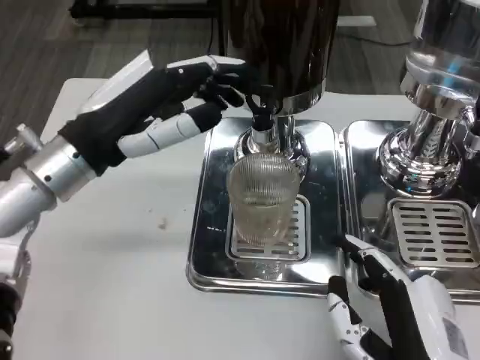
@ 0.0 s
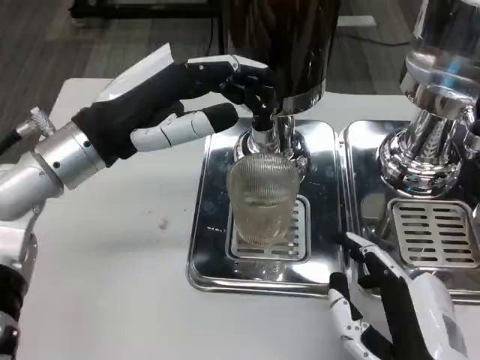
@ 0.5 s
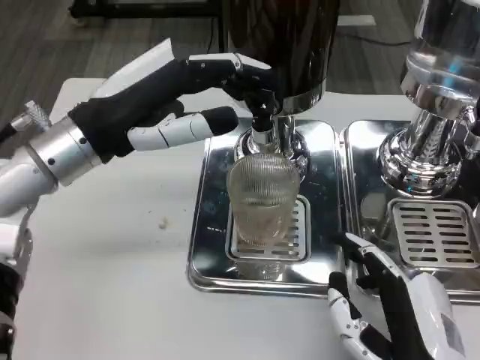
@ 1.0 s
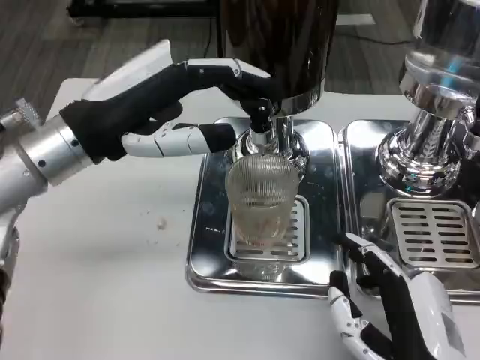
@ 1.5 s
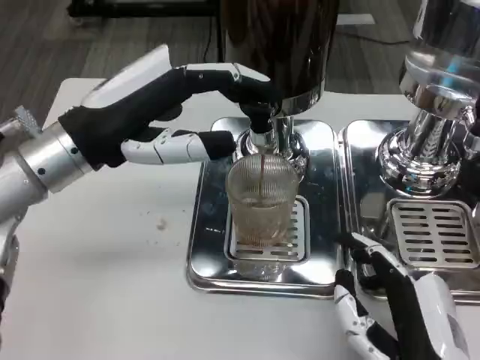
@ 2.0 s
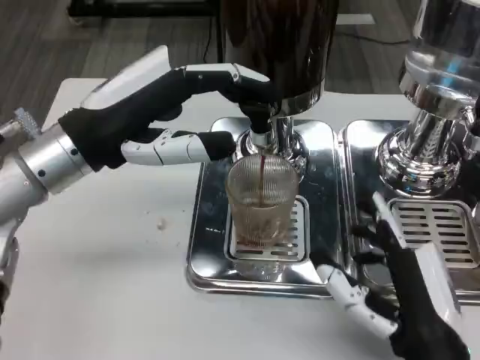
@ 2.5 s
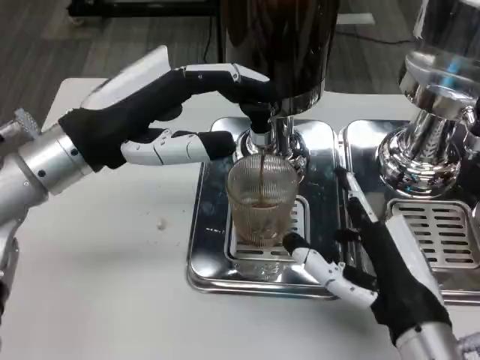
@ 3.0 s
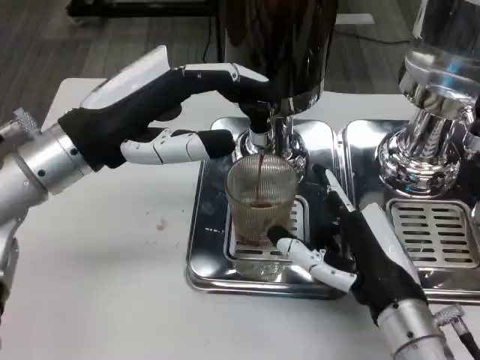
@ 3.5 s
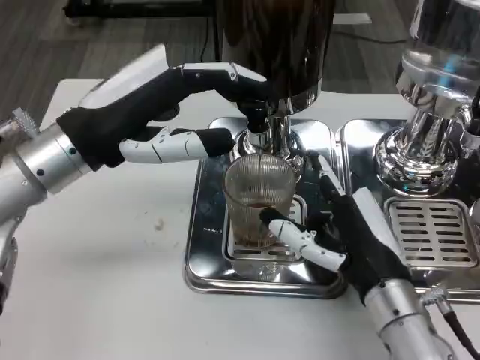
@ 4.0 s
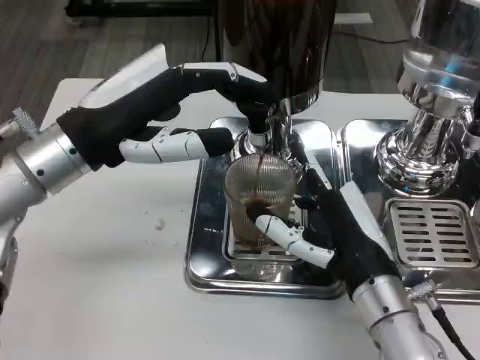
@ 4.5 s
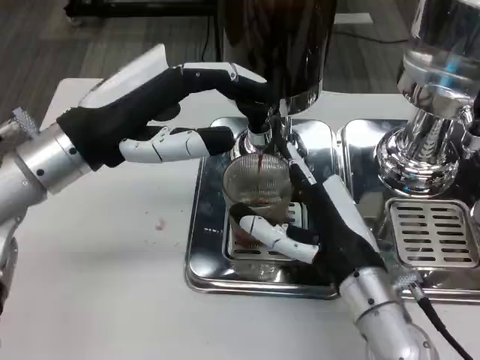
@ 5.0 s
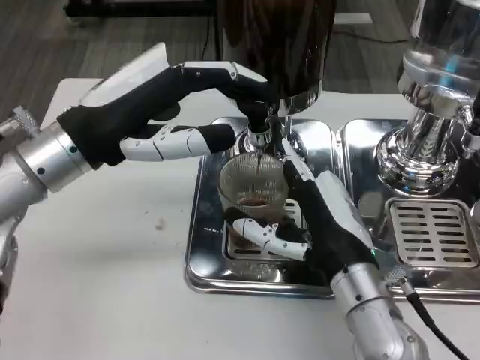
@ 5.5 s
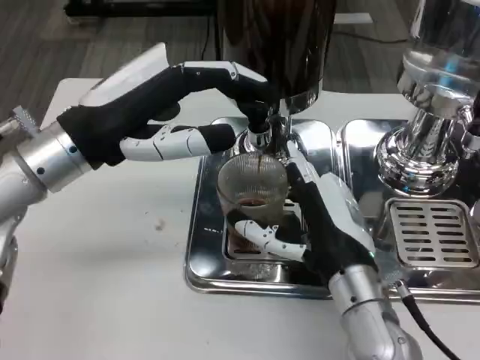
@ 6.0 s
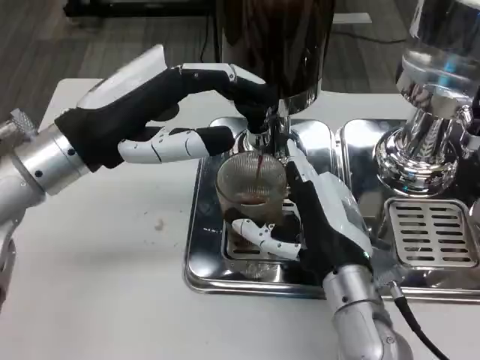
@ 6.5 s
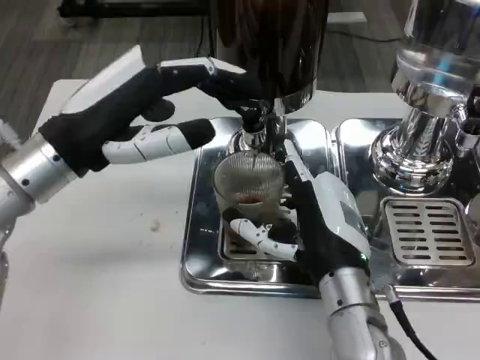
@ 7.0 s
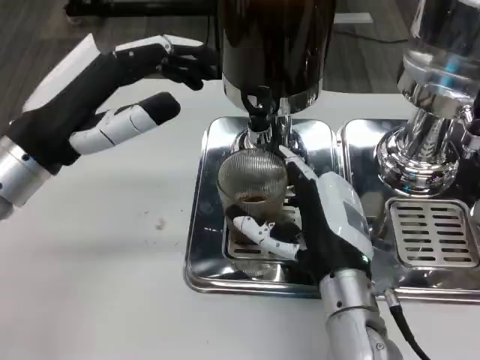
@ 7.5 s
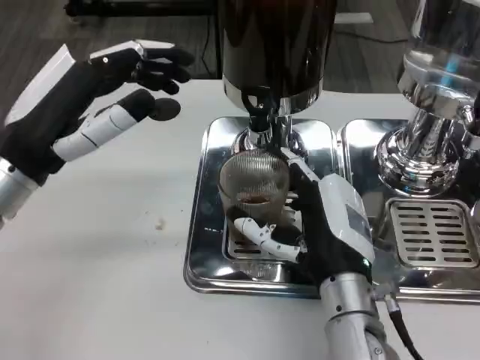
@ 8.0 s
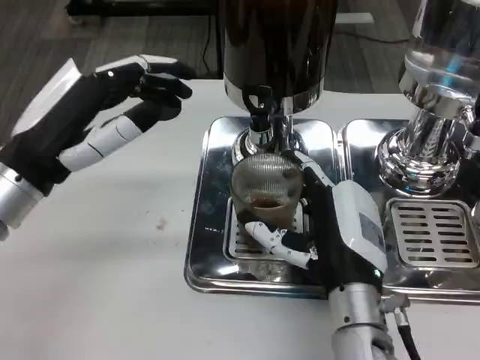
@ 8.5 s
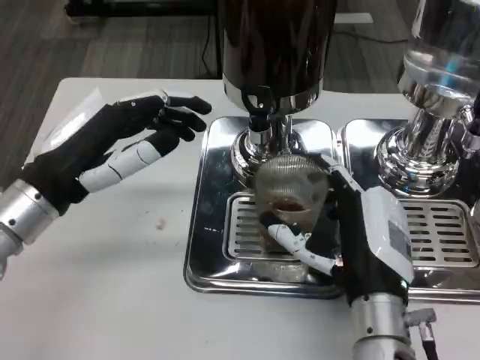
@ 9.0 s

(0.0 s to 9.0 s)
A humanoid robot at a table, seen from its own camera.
Task of the whole recording: Grasp the cup under the faucet to collect the drink, then remove the cup.
0.0 s - 2.0 s: The hands move only a little.
2.0 s - 4.5 s: The right hand moves forward, about 10 cm.

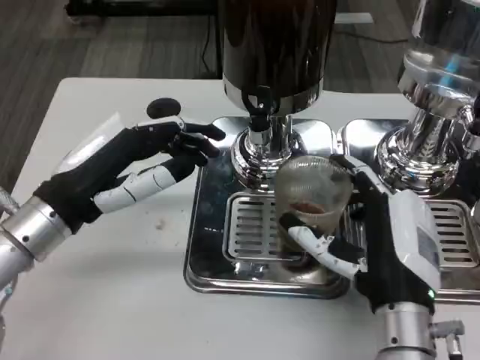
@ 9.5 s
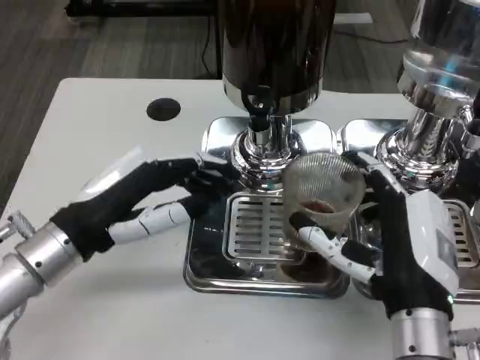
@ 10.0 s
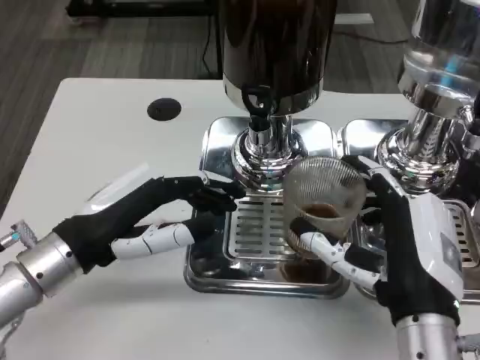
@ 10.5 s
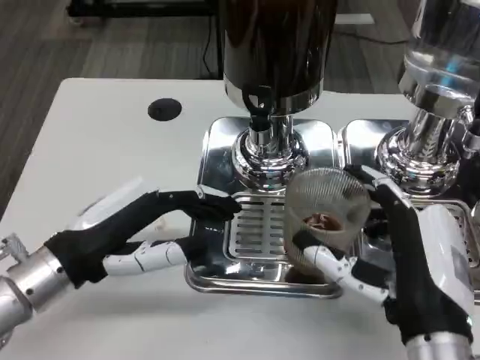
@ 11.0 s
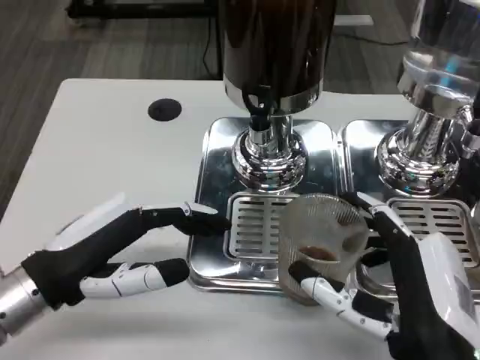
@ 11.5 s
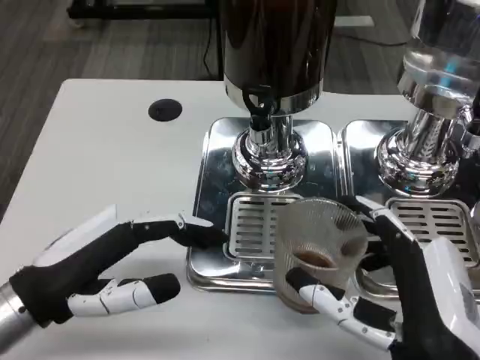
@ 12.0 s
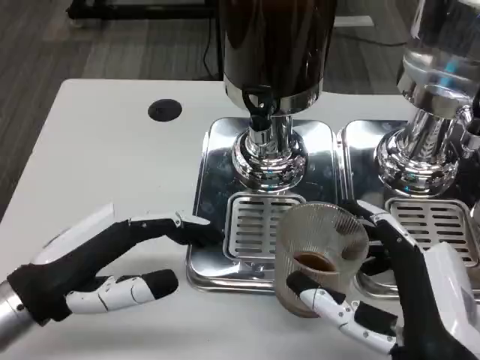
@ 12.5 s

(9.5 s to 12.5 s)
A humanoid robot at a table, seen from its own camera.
Task of the whole recording: Grasp the cup under the faucet to collect the drink, then remove the cup.
9.5 s - 11.0 s: The right hand changes place by roughly 5 cm.

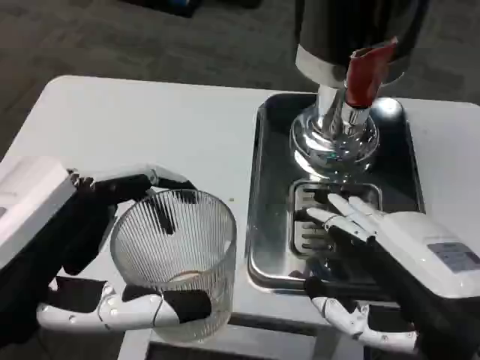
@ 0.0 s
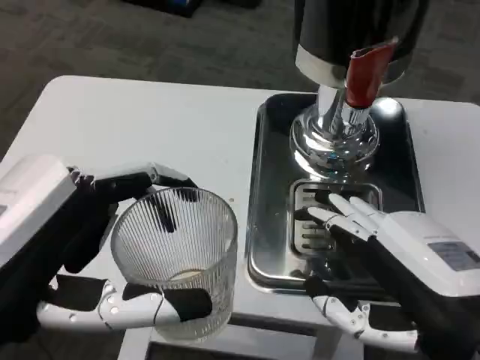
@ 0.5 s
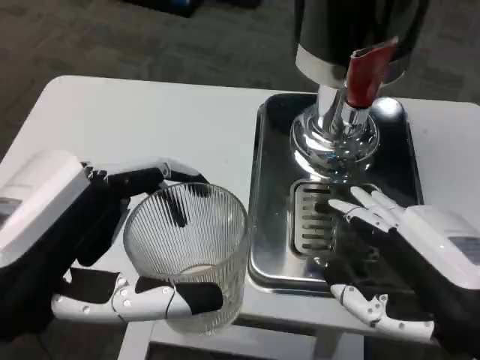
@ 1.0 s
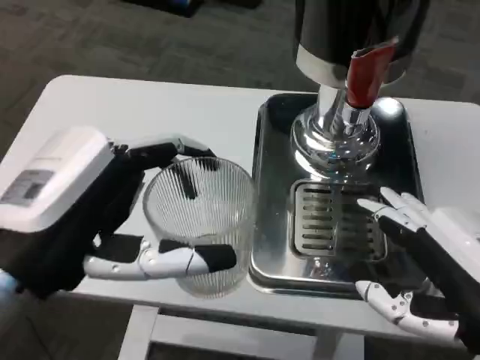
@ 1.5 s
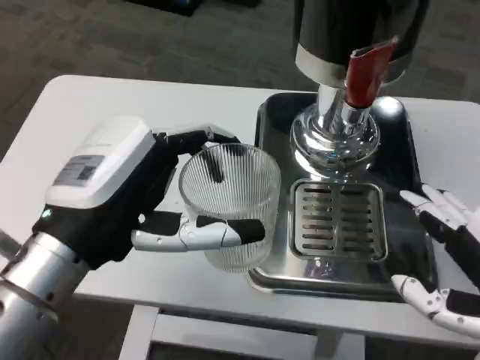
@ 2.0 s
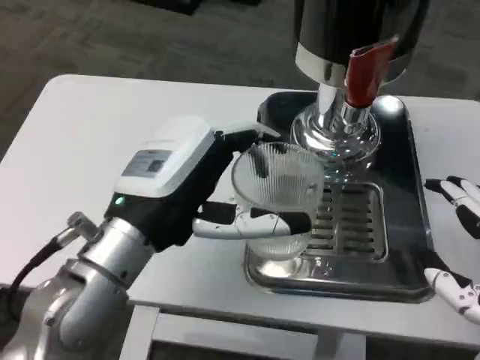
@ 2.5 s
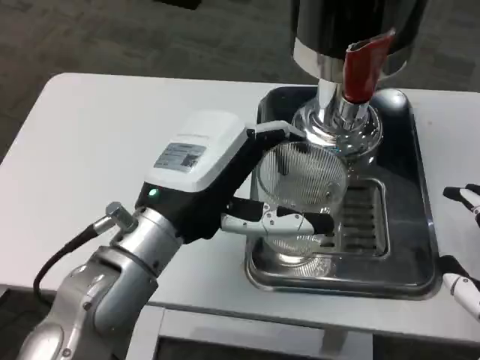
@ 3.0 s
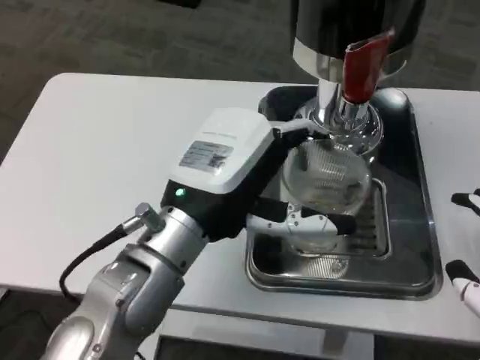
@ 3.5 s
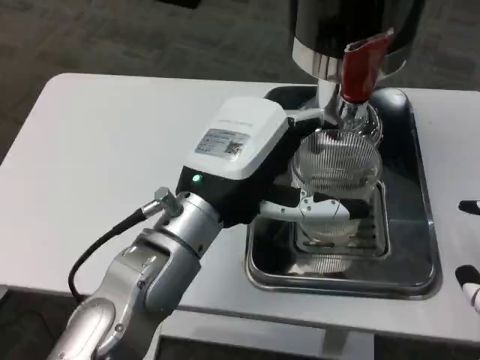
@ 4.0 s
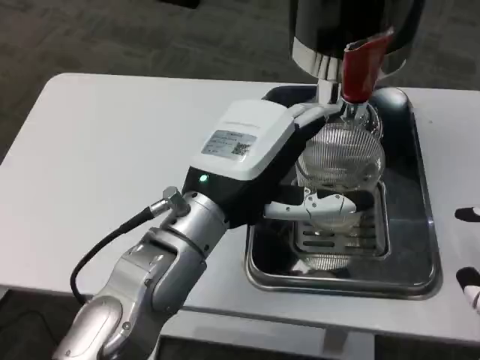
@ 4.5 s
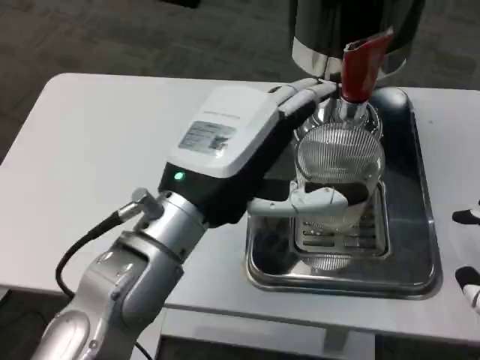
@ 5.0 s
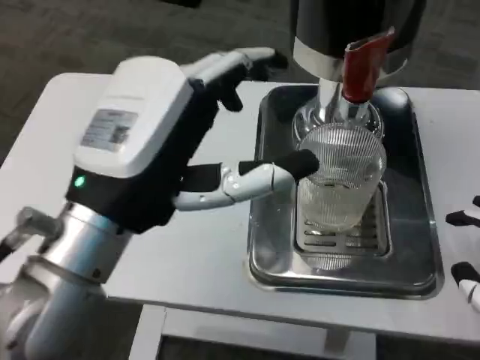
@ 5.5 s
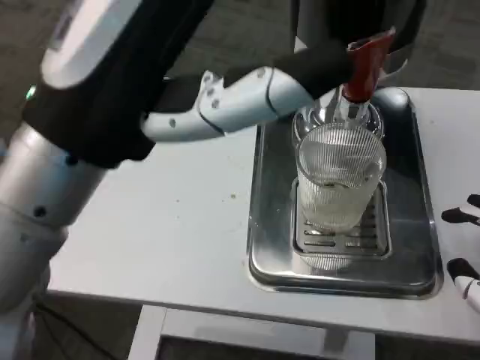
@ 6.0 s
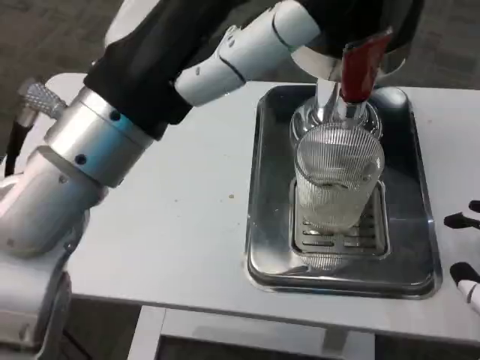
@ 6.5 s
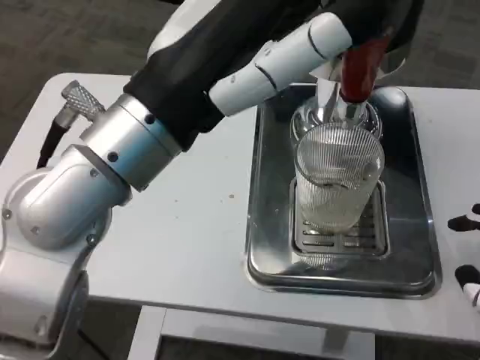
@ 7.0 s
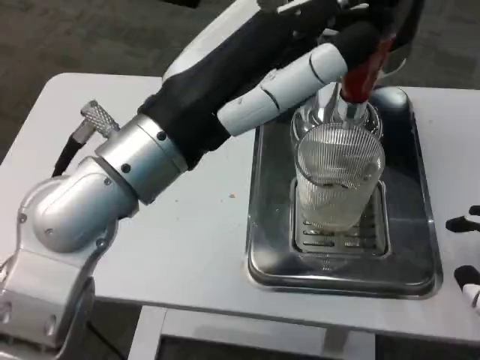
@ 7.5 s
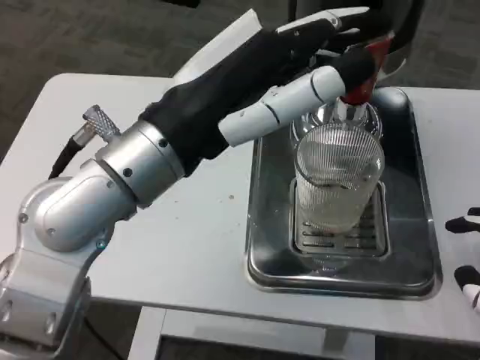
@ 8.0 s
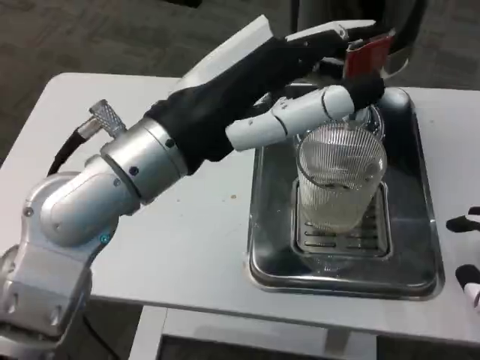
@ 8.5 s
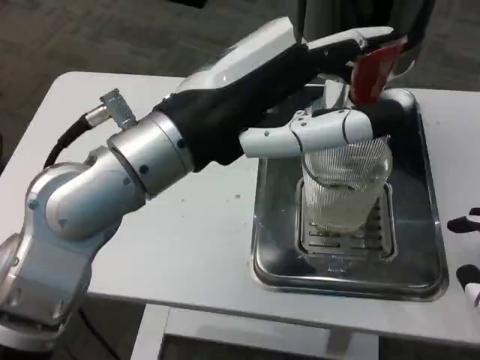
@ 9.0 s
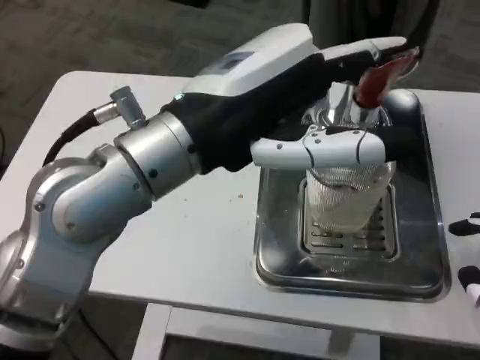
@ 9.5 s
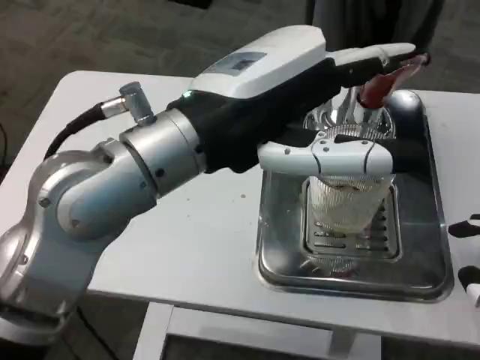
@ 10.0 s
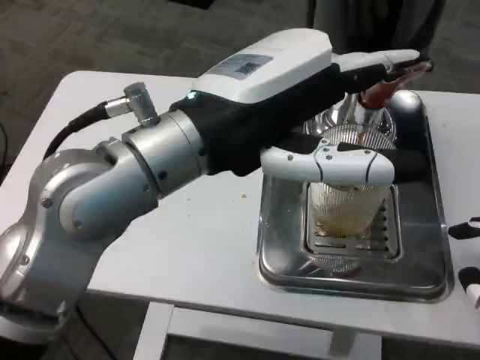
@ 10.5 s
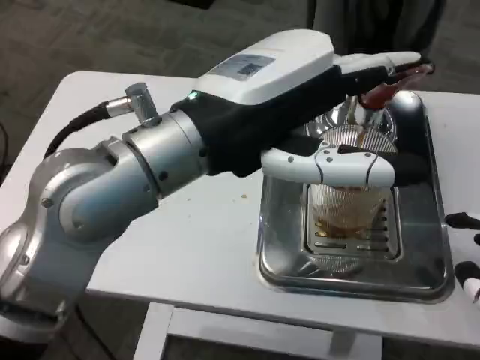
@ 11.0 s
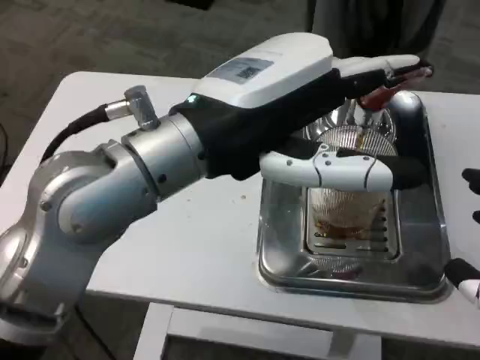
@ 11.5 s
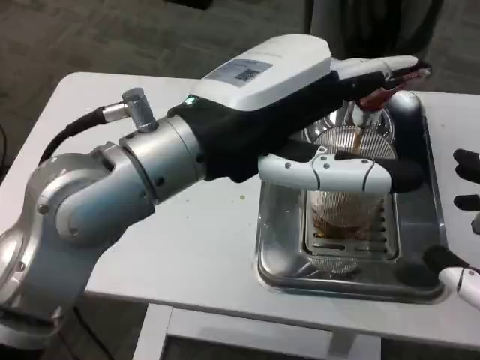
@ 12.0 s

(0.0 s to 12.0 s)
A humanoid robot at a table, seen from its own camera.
Task of the whole recording: Grasp the cup under the faucet to collect the drink, then remove the cup.
0.0 s - 2.0 s: The left hand moves forward, approximately 10 cm.
2.0 s - 4.0 s: The left hand heads to the right and forward, covering about 10 cm.
4.0 s - 6.0 s: The left hand travels upward, backward and to the left by approximately 15 cm.
6.0 s - 8.0 s: The left hand goes about 5 cm forward.

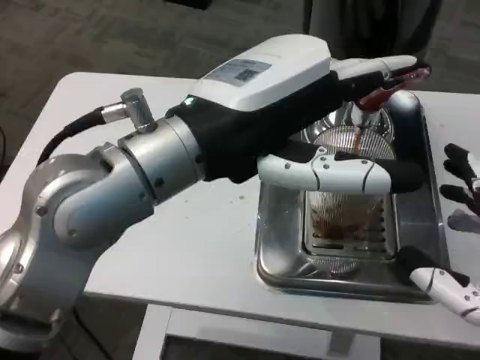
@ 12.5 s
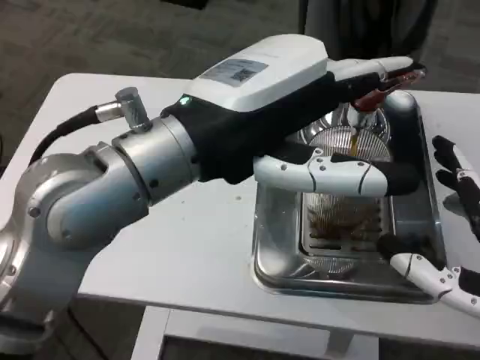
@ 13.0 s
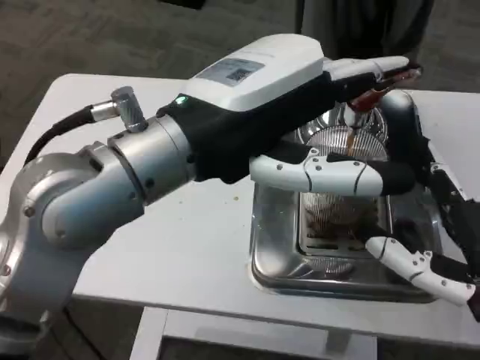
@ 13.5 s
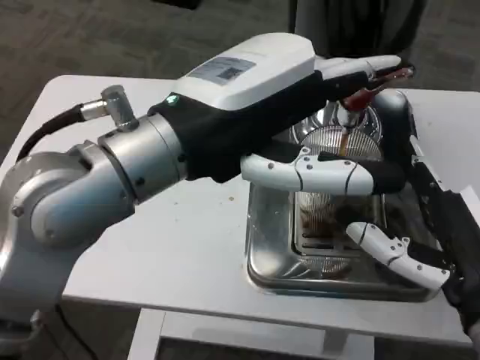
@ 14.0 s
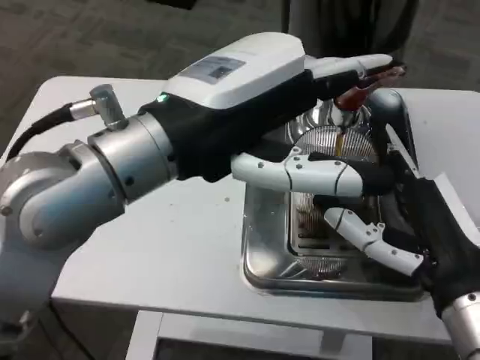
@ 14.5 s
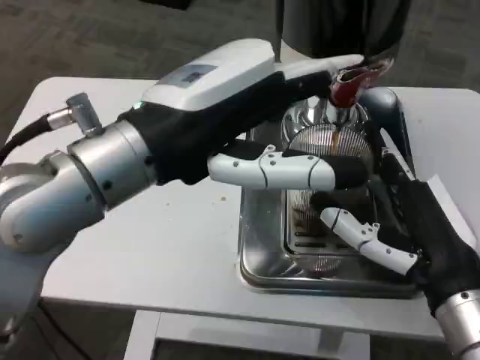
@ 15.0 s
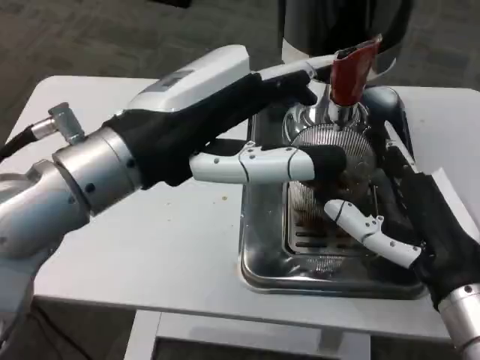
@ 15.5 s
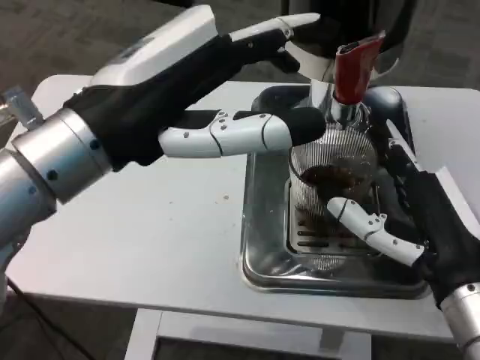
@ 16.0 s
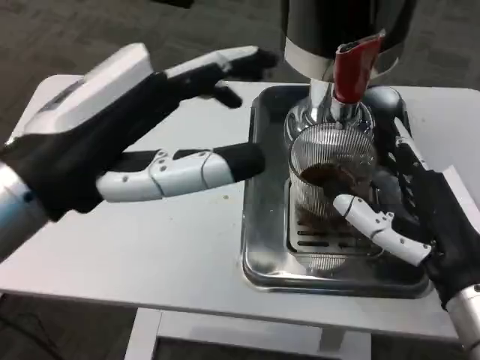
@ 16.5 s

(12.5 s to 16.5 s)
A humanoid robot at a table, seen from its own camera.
Task of the whole recording: Grasp the cup under the faucet to collect the drink, then remove the cup.
12.5 s - 14.5 s: The right hand shifts about 10 cm forward and to the left.
14.5 s - 16.5 s: The left hand travels to the left by about 5 cm.
